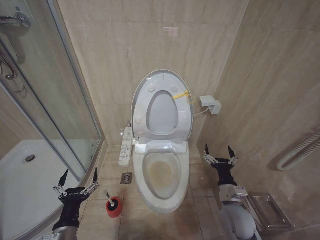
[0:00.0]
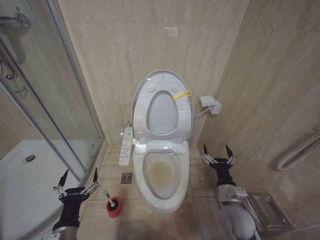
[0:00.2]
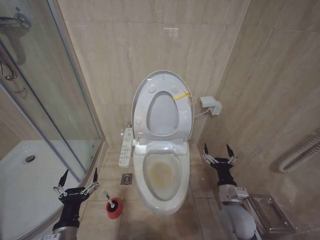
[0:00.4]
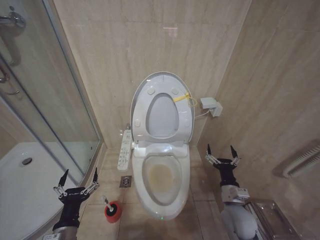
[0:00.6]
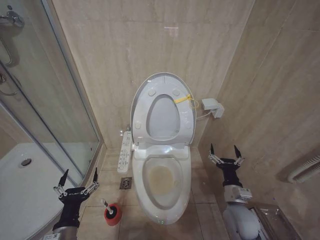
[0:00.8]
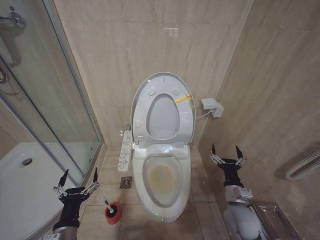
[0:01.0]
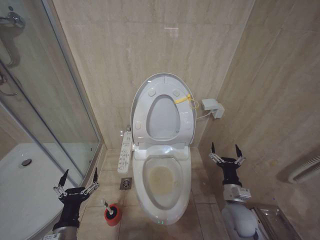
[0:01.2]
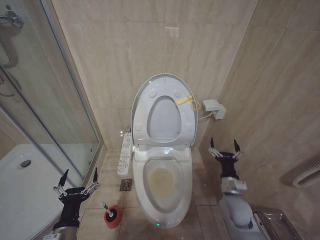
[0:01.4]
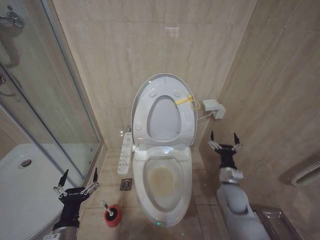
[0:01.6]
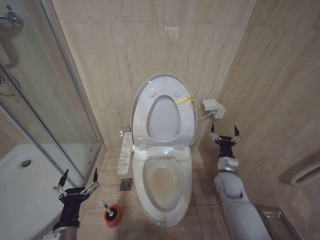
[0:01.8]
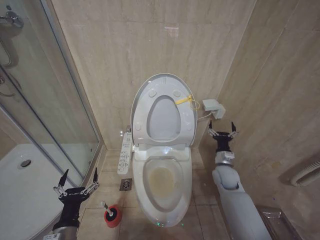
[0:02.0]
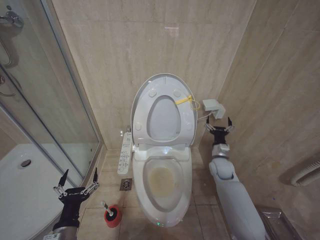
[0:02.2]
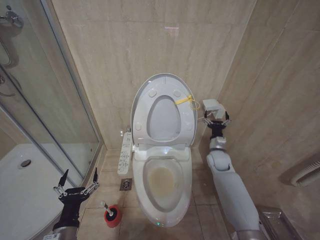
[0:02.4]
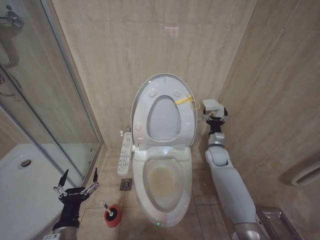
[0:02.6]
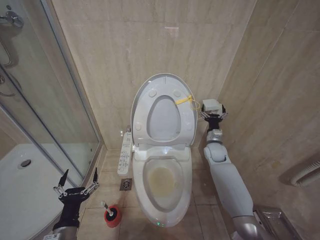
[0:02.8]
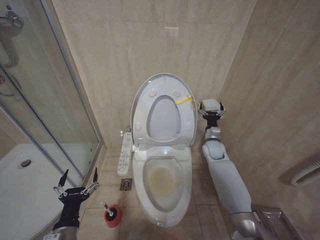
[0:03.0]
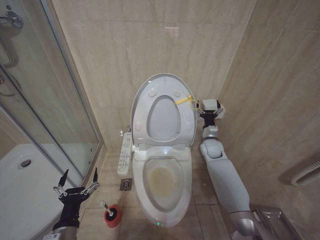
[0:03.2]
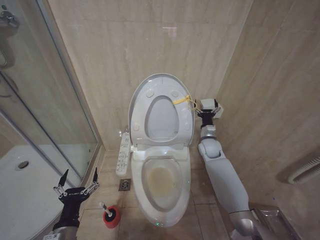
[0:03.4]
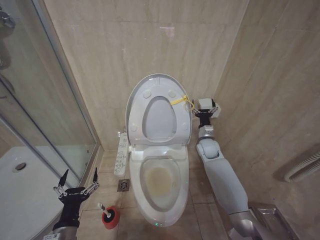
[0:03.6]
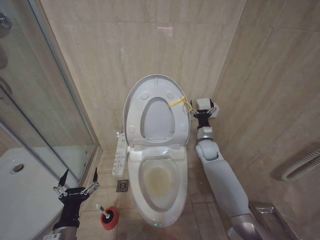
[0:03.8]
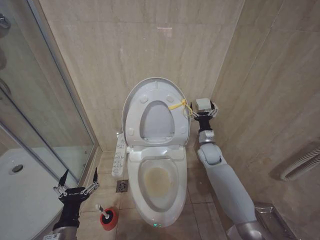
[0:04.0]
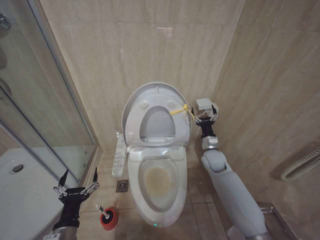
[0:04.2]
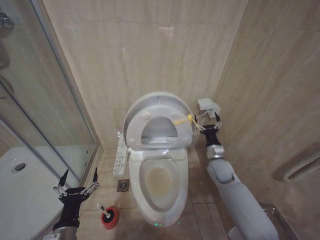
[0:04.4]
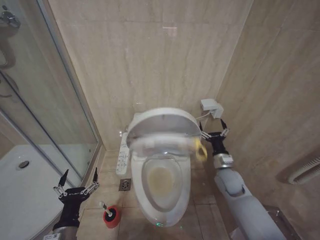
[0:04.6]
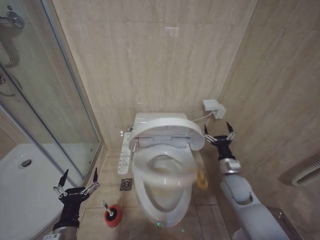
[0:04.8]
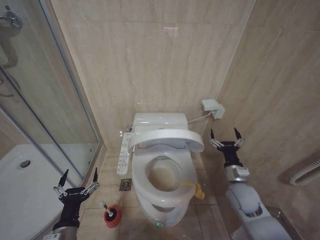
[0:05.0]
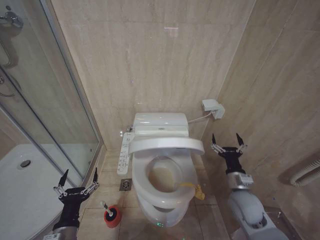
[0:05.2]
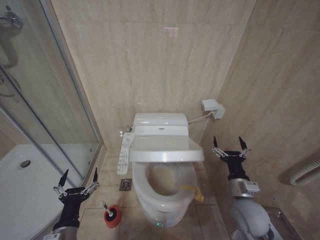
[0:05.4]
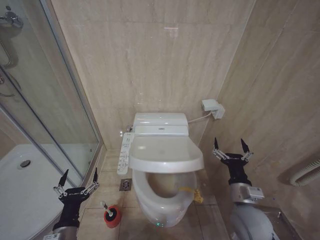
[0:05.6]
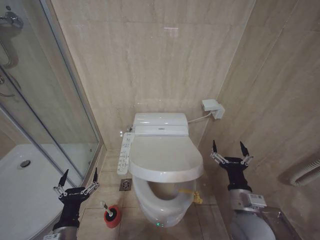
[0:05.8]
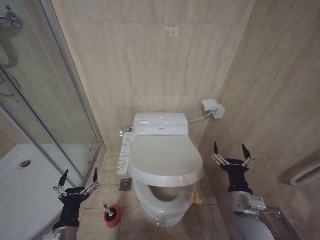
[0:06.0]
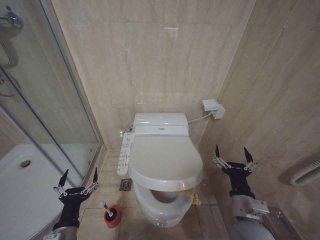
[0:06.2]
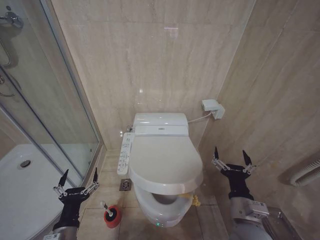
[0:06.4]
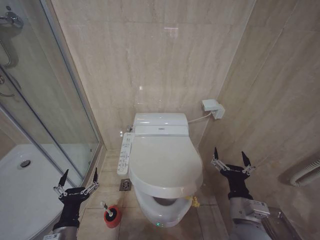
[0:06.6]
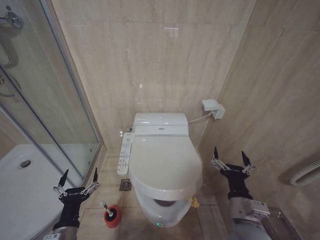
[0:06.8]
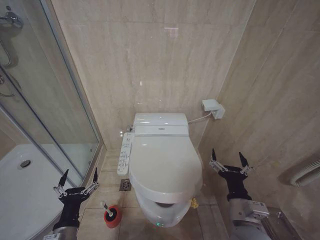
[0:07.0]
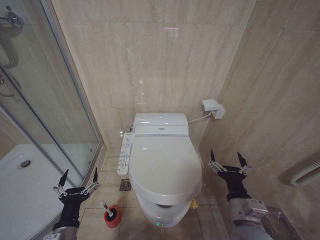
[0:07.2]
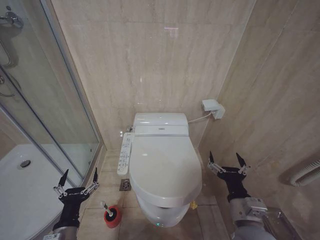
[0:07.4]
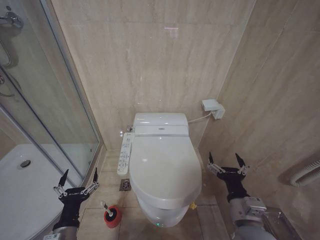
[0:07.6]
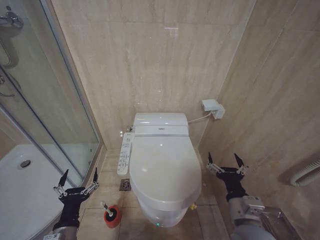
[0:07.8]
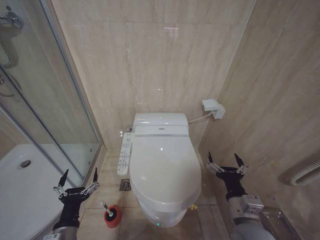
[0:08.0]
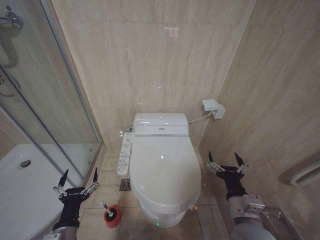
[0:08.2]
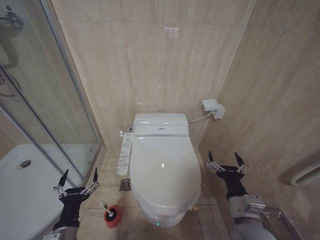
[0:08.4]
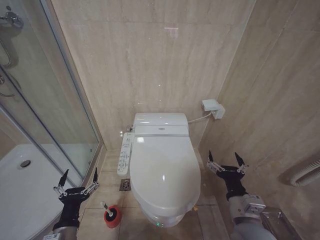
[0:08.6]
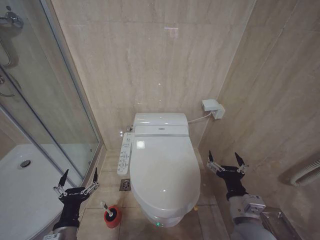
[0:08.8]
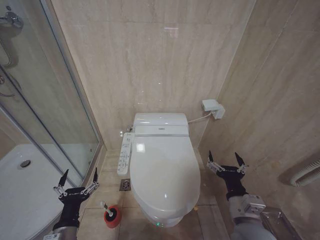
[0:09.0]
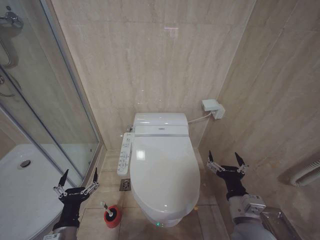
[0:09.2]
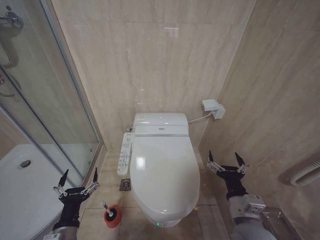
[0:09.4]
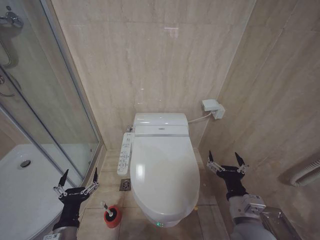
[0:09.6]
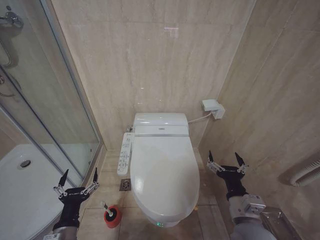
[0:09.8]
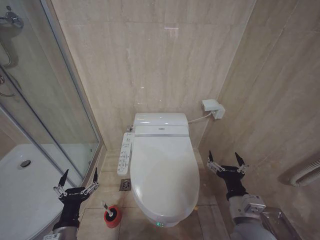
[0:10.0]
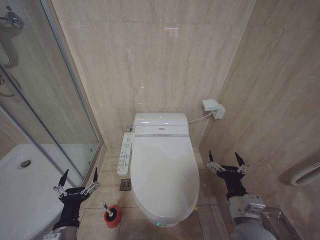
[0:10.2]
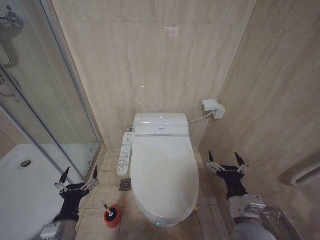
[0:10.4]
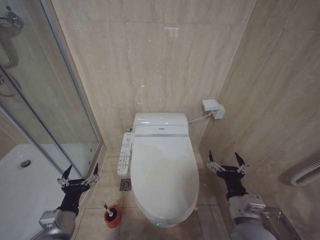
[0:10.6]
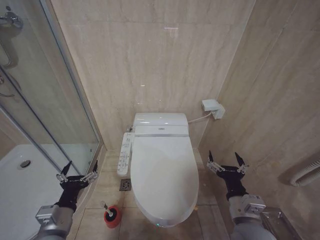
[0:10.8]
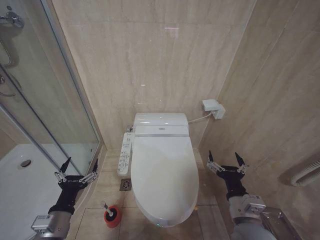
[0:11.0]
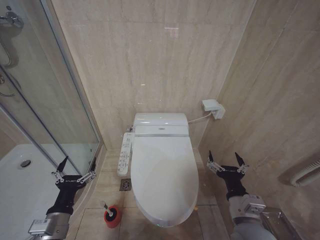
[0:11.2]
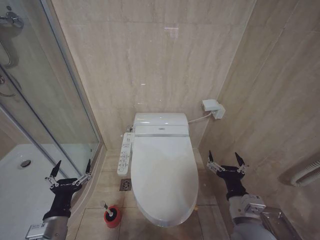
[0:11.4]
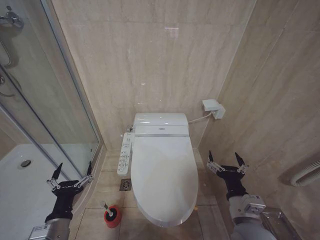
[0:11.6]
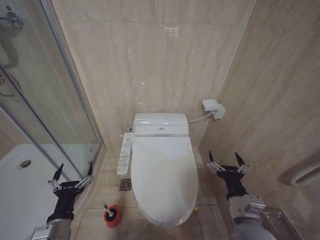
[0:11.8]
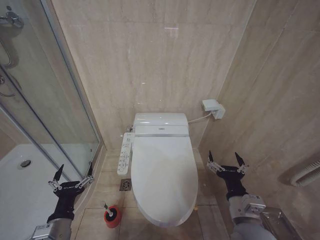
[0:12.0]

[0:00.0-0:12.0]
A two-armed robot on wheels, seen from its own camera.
Task of the whole recording: Open the toilet lid, clean the toilet bowl with a toilet brush, close the toilet lid, and flush.
0:00.0 to 0:01.6: The right gripper travels forward by approximately 5 cm.
0:01.6 to 0:03.0: The right gripper goes about 20 cm forward.
0:03.0 to 0:04.4: The right gripper is displaced backward by some 10 cm.
0:04.4 to 0:06.0: The right gripper shifts approximately 20 cm backward.
0:06.0 to 0:07.6: The grippers make only small movements.
0:07.6 to 0:10.4: The two grippers keep their place.
0:10.4 to 0:12.0: The grippers make only small movements.

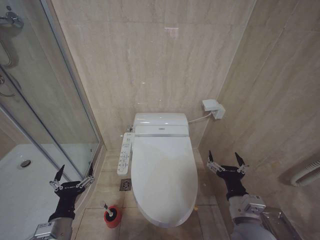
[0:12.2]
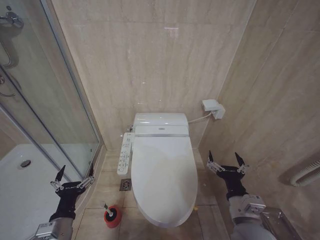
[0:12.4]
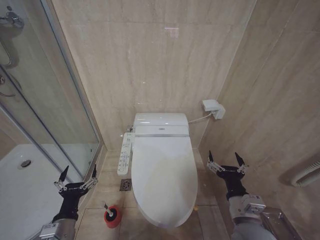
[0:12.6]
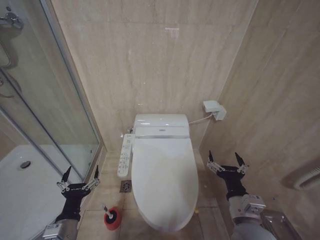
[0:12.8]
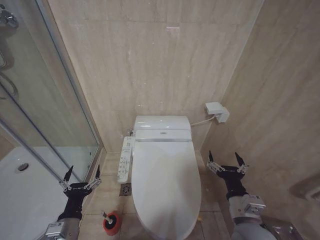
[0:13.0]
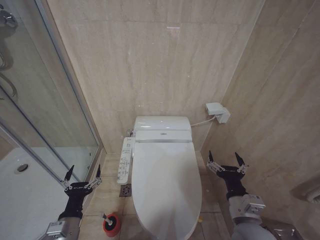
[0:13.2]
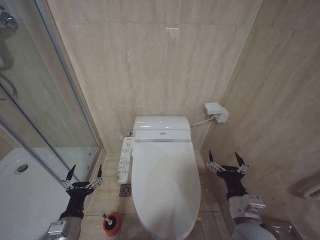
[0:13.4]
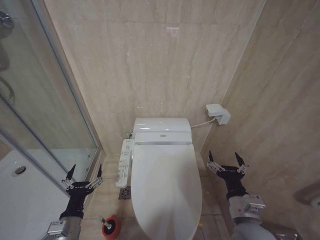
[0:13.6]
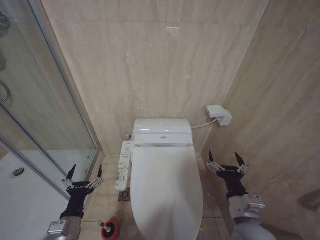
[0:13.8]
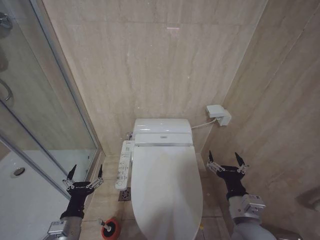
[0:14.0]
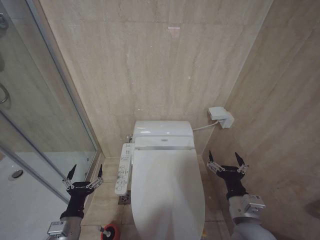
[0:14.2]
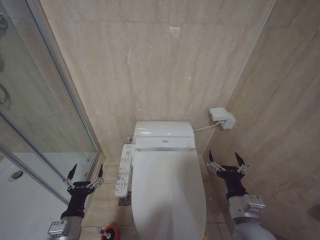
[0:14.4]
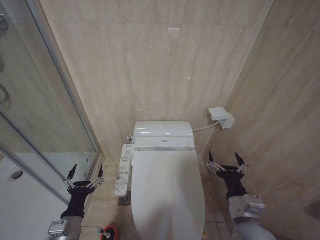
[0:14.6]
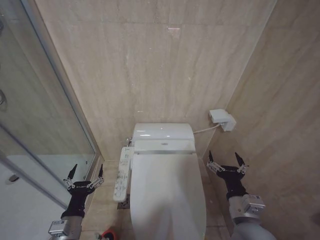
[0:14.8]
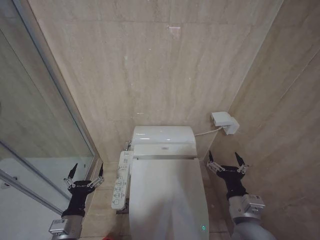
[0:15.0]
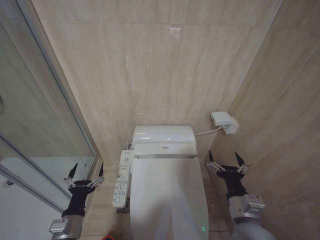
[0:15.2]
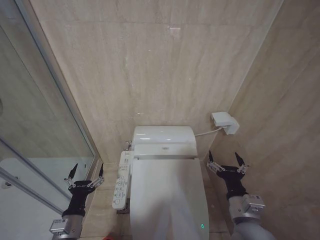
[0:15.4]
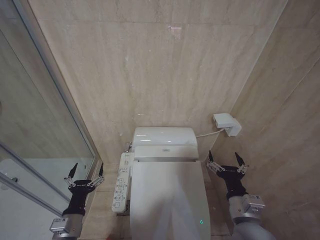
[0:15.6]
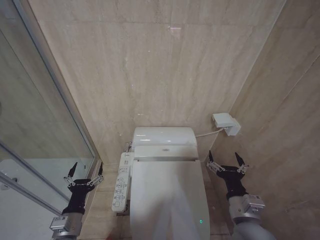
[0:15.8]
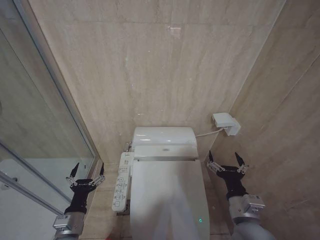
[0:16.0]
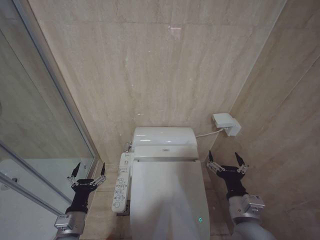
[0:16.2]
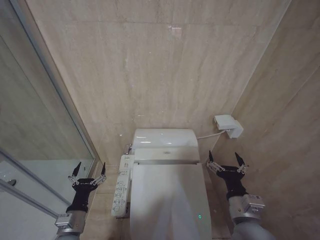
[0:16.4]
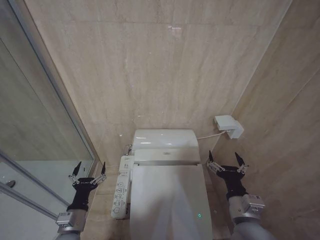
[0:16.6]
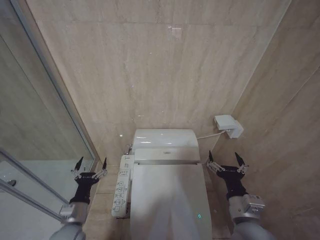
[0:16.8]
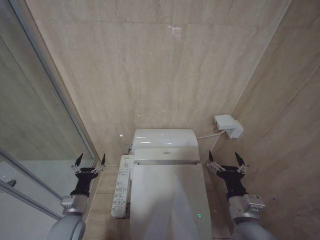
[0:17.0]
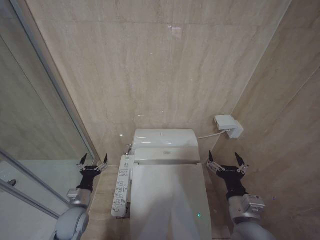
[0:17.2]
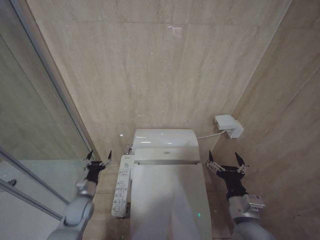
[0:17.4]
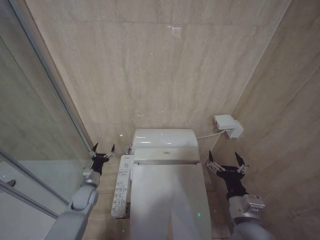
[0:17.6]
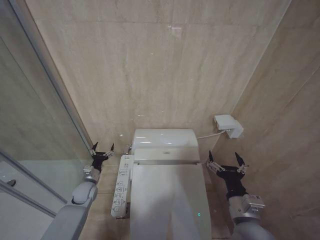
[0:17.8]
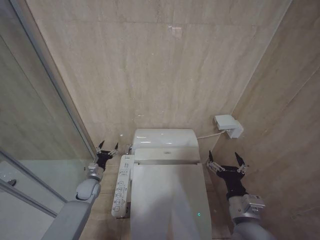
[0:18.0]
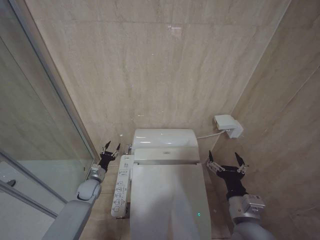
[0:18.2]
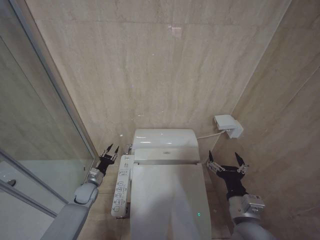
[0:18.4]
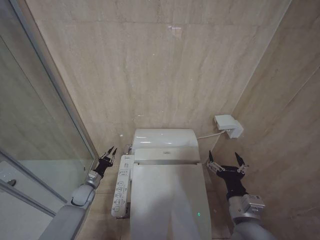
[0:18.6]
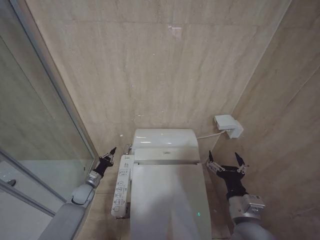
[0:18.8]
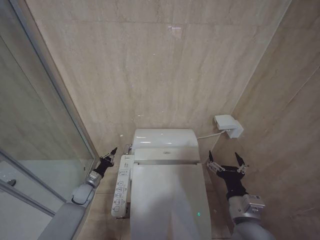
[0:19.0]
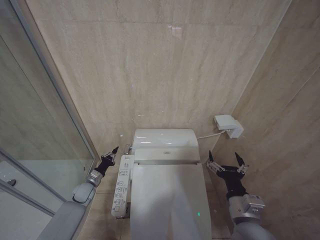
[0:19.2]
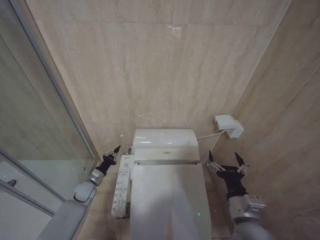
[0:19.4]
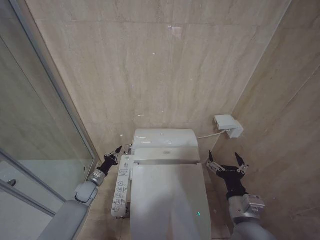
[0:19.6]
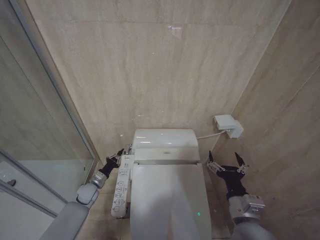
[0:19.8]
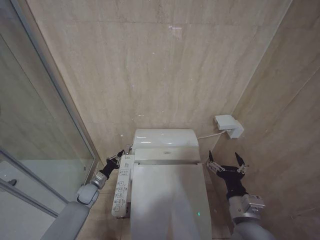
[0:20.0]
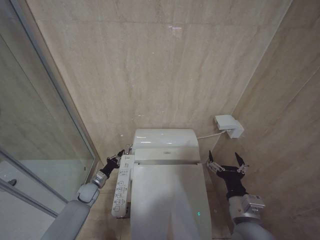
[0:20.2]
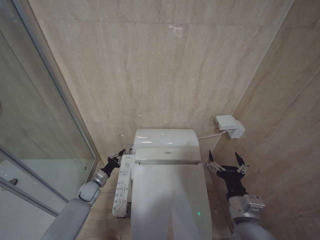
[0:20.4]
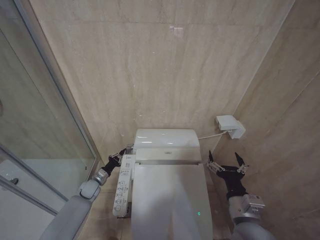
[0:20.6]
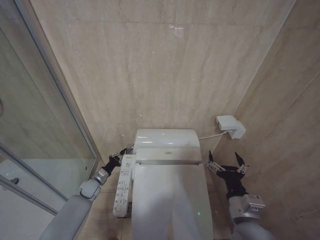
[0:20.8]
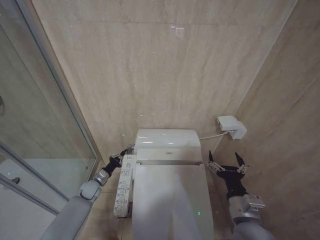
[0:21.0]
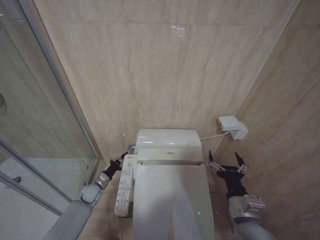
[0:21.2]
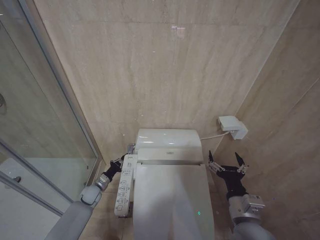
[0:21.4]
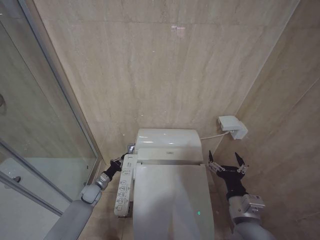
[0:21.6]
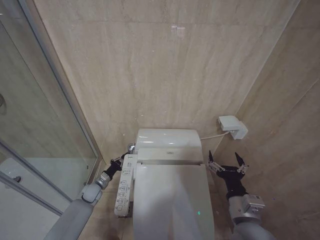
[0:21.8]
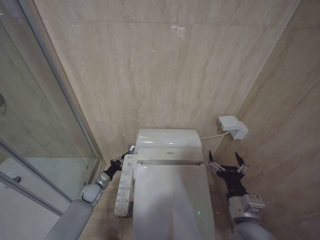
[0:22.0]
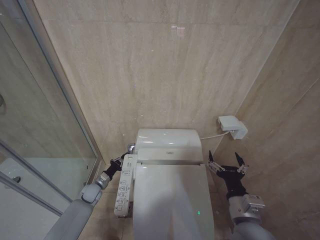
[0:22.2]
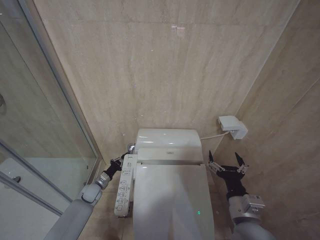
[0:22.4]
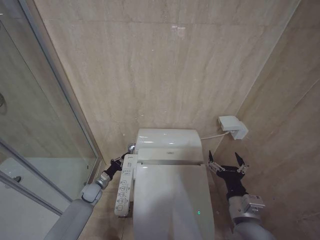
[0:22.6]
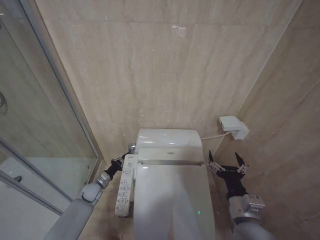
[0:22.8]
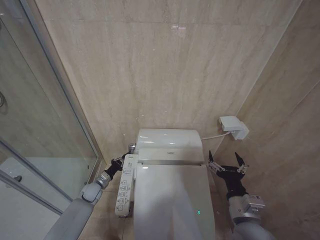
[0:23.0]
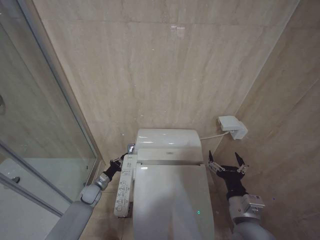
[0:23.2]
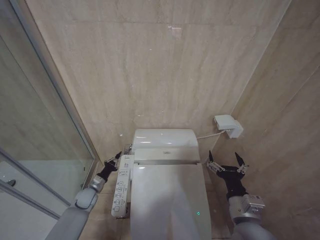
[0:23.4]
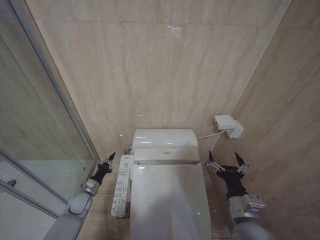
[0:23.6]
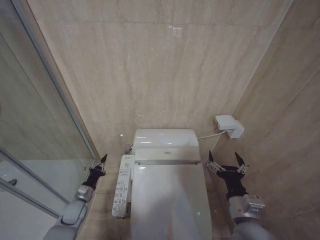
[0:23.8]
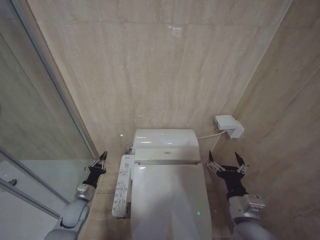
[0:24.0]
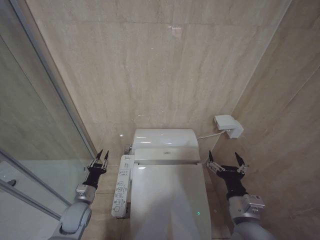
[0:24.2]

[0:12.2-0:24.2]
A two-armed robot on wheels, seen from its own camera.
Task of the whole recording: Open the toilet lid, clean the toilet bowl with a toilet brush, close the toilet lid, and flush.
0:12.2 to 0:13.8: The grippers make only small movements.
0:13.8 to 0:15.2: The two grippers keep their place.
0:15.2 to 0:16.6: The grippers stay close to where they were, moving slightly.
0:16.6 to 0:18.2: The left gripper moves forward, approximately 20 cm.
0:18.2 to 0:19.8: The left gripper closes.
0:19.8 to 0:21.2: There are only small adjustments of the grippers.
0:21.2 to 0:22.6: Neither gripper changes place.
0:22.6 to 0:24.2: The left gripper is displaced backward and upward by approximately 15 cm.
